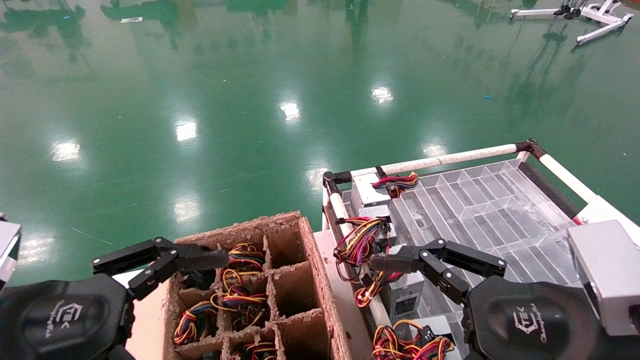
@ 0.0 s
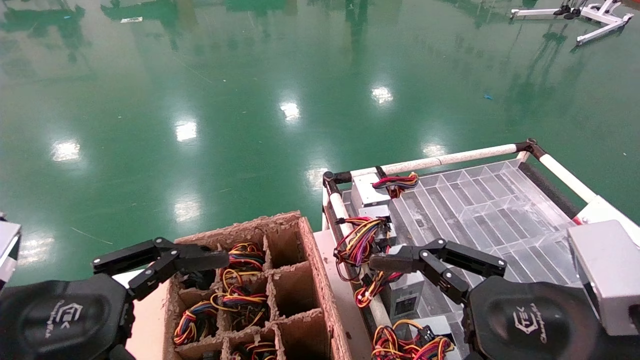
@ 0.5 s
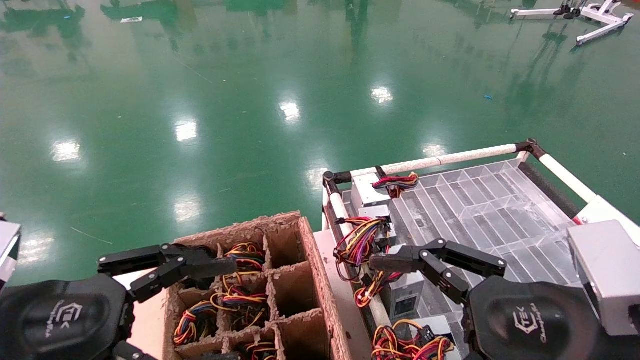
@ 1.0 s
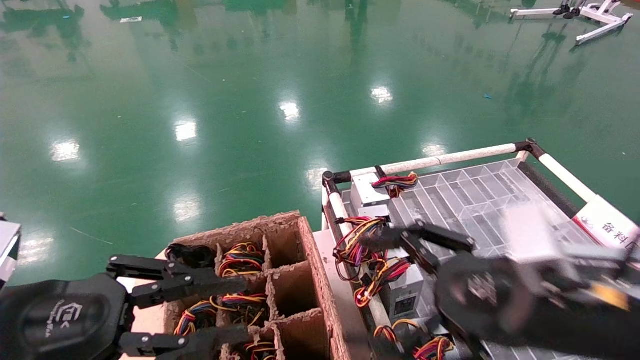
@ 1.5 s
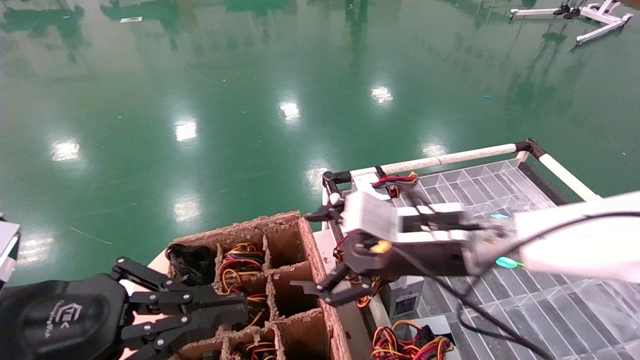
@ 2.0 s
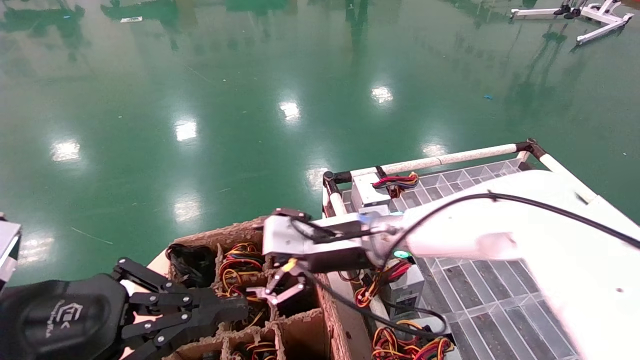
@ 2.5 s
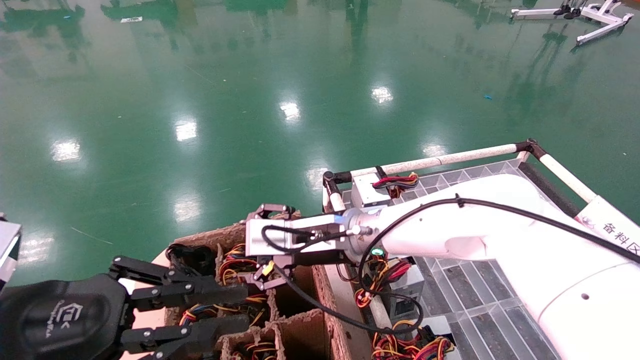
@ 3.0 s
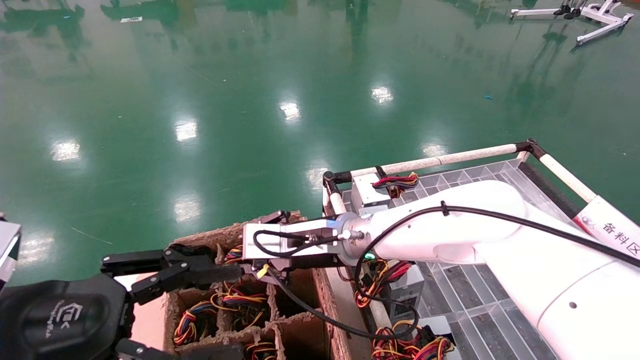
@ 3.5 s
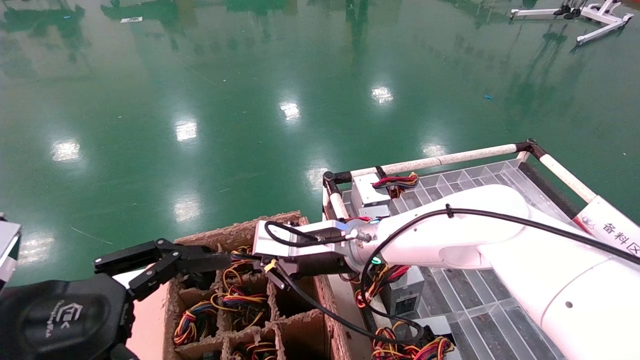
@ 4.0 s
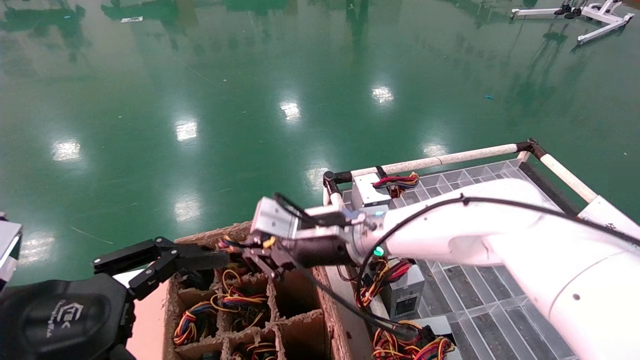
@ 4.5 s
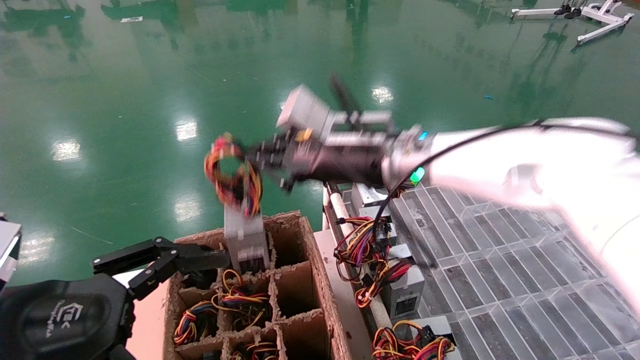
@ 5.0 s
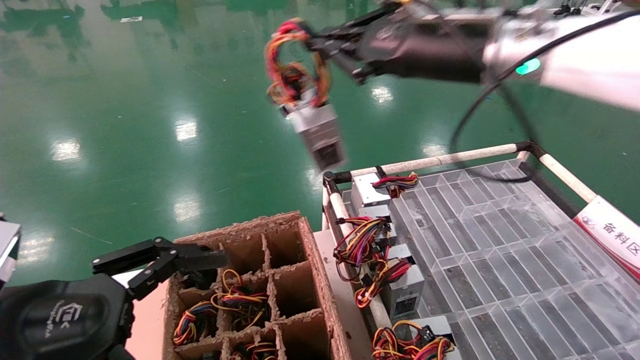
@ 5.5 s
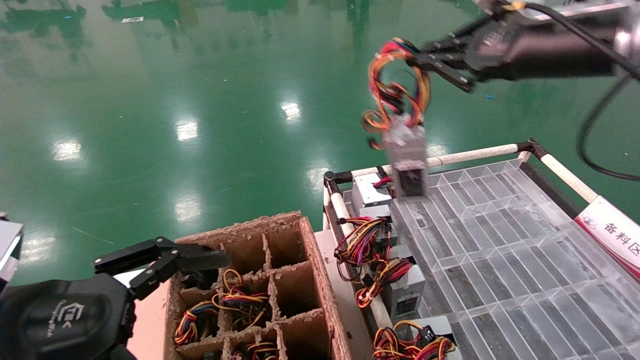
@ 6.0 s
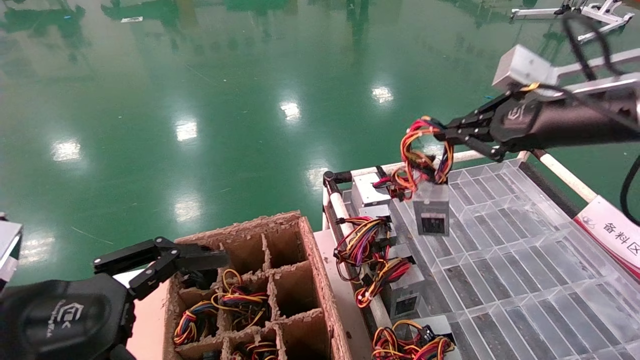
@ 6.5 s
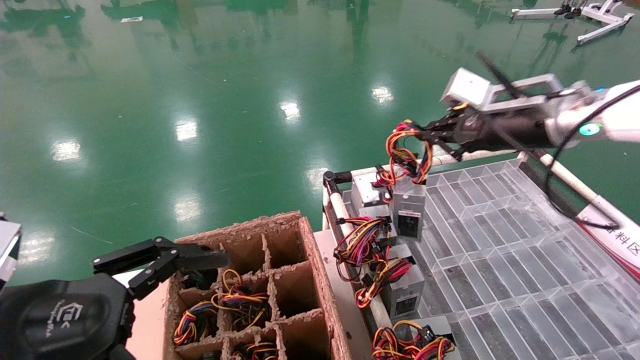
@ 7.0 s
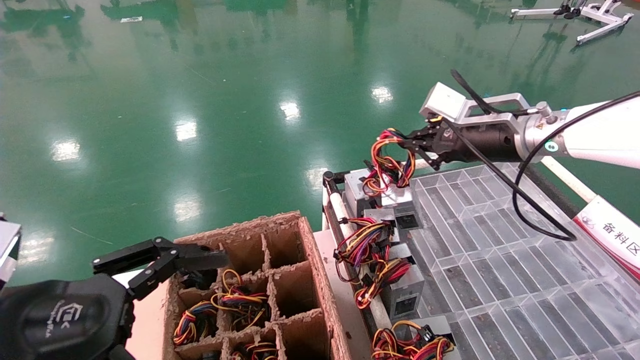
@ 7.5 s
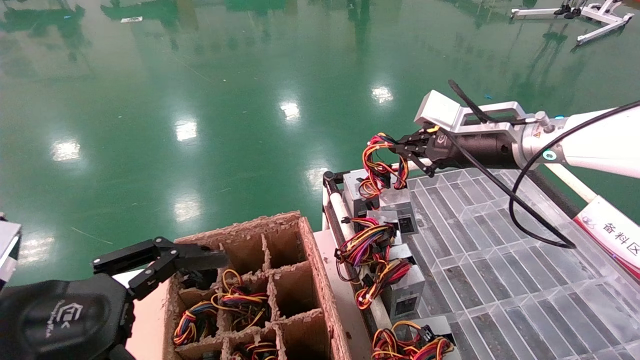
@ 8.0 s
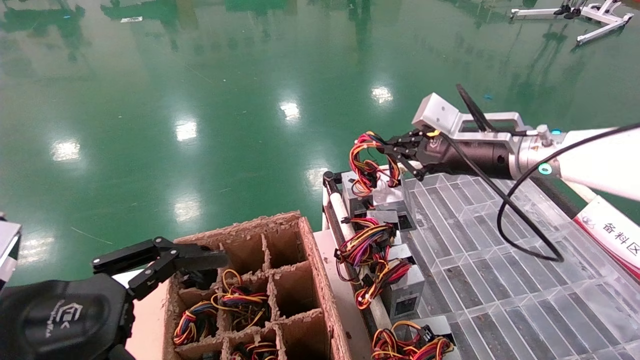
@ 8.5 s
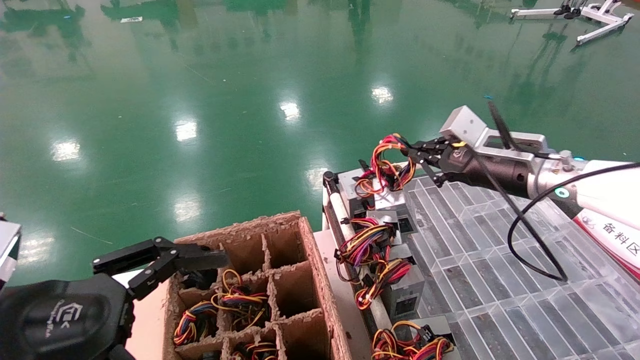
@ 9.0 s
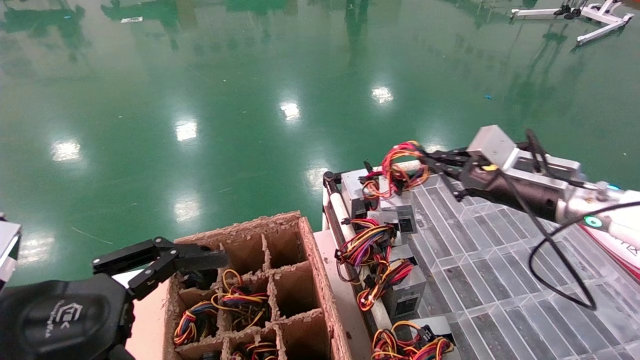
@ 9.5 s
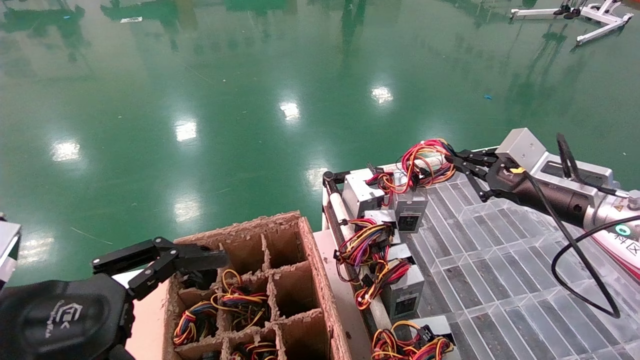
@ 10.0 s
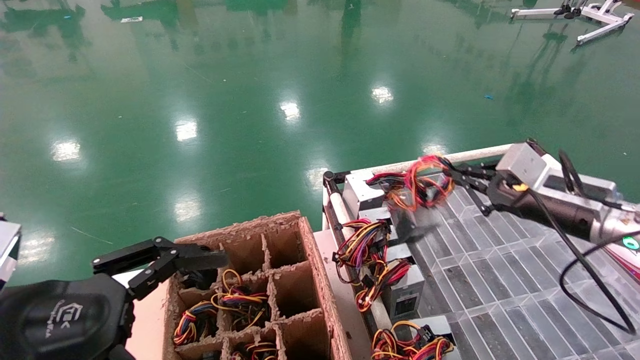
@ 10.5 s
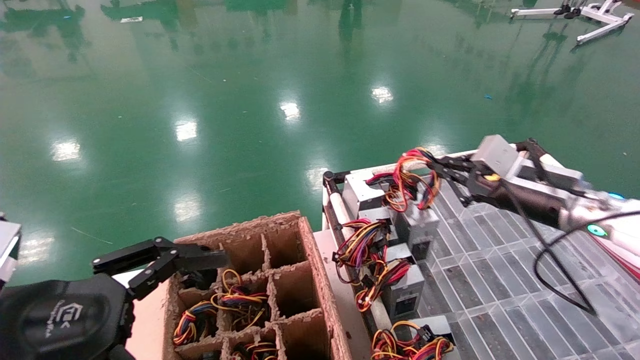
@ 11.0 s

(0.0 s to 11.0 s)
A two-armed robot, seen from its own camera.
Step, 1.0 s - 4.0 s: Grab and lift the power supply from the large box.
0.0 s - 2.0 s: The left gripper closes up. Meanwhile the right gripper goes about 20 cm forward and to the left.
2.0 s - 3.5 s: The right gripper moves to the left and forward, roughly 15 cm, and closes up, while the left gripper opens.
3.5 s - 5.5 s: The left gripper opens its fingers. Meanwhile the right gripper travels upward and to the right by roughly 30 cm, and closes.
5.5 s - 7.5 s: The right gripper goes approximately 15 cm to the right, downward and forward.
7.5 s - 9.0 s: The right gripper moves downward, some 5 cm.

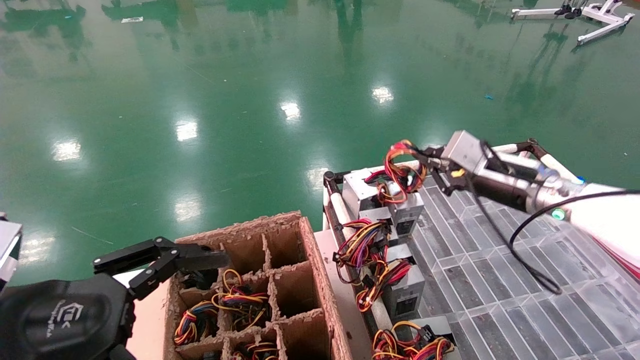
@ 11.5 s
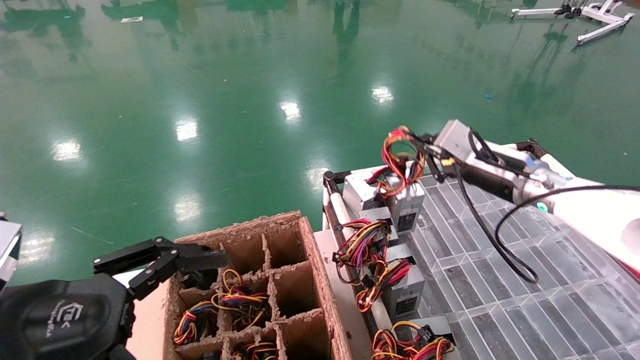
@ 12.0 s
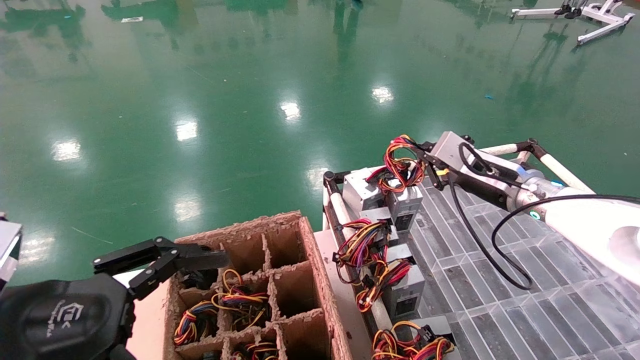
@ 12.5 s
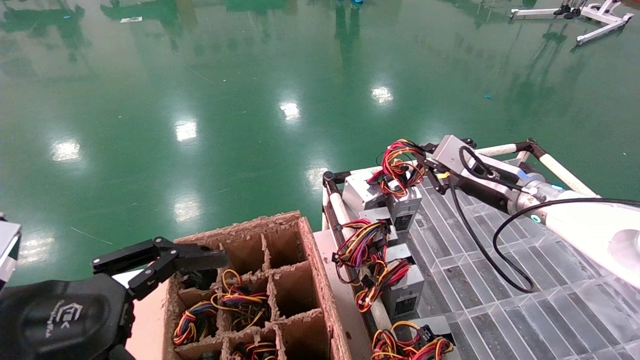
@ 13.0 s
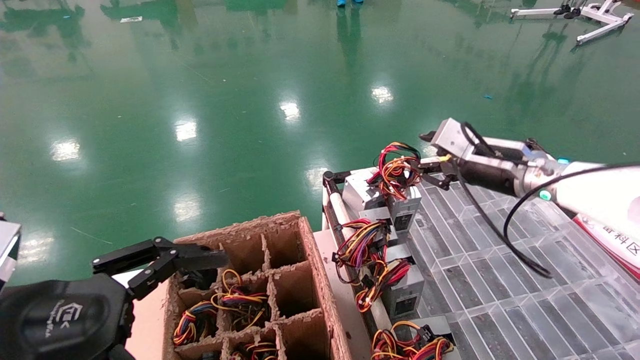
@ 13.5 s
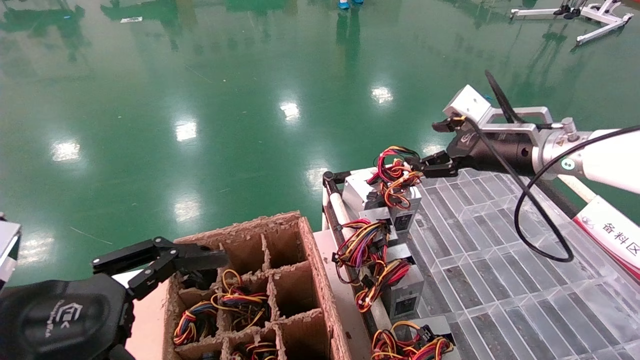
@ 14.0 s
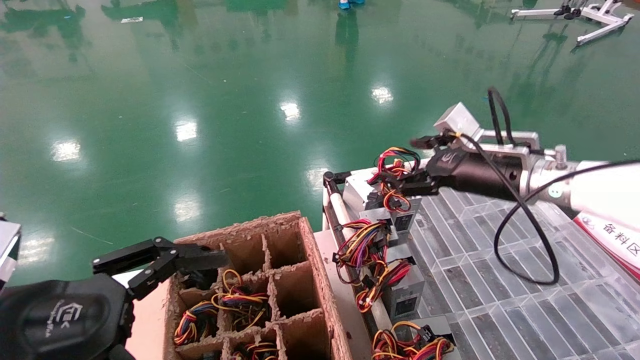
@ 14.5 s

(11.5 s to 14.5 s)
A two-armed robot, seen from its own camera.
11.5 s - 13.0 s: There are only small adjustments of the grippers.
13.0 s - 14.5 s: The right gripper moves about 5 cm, and opens up.
